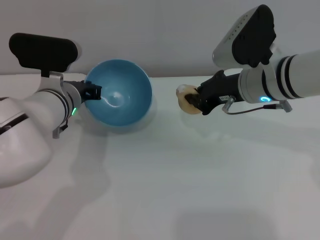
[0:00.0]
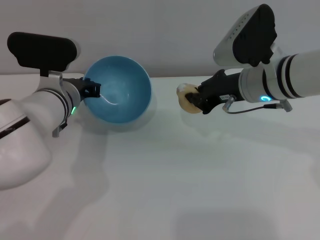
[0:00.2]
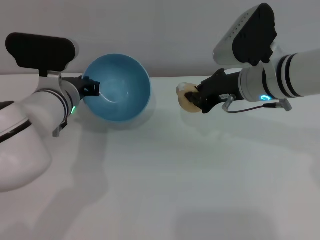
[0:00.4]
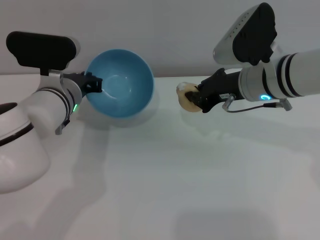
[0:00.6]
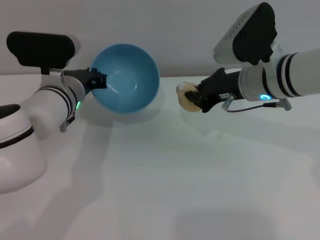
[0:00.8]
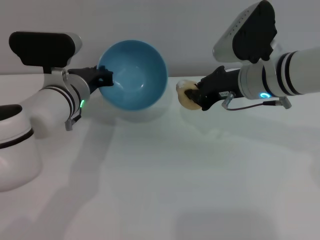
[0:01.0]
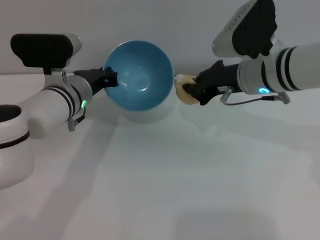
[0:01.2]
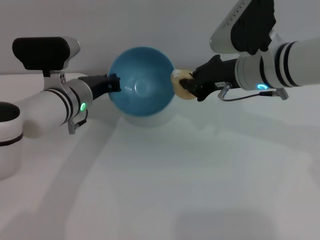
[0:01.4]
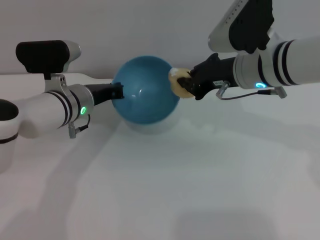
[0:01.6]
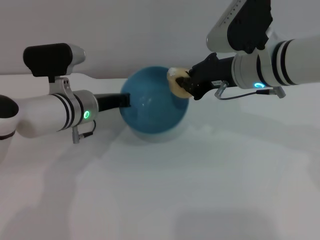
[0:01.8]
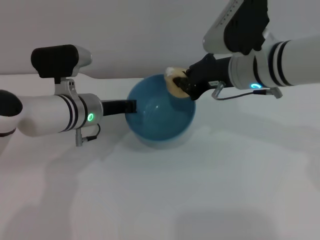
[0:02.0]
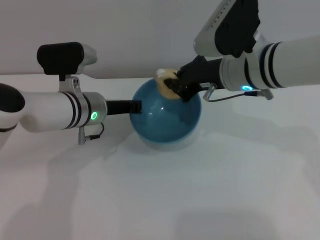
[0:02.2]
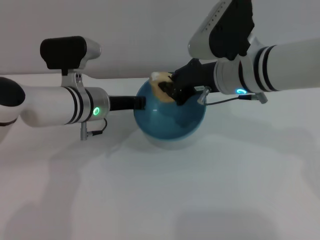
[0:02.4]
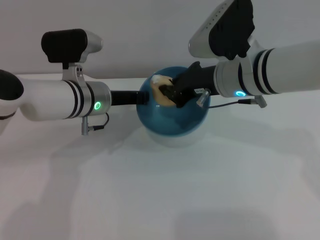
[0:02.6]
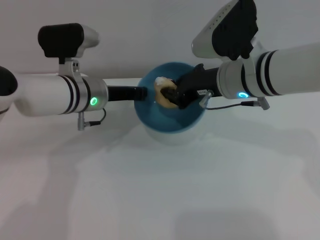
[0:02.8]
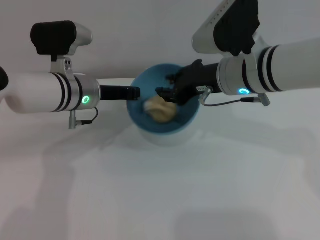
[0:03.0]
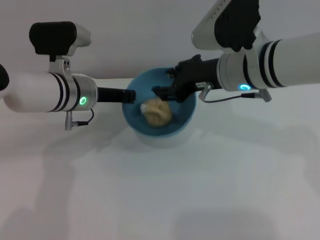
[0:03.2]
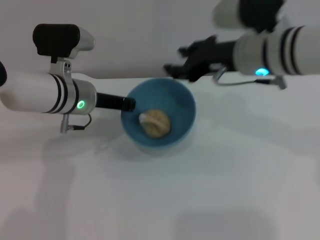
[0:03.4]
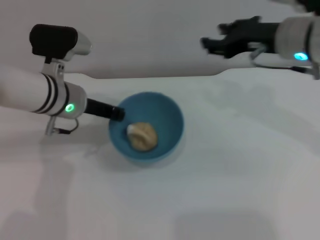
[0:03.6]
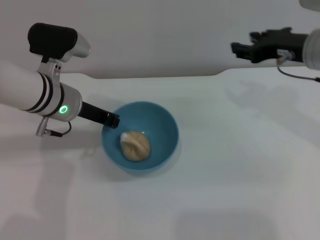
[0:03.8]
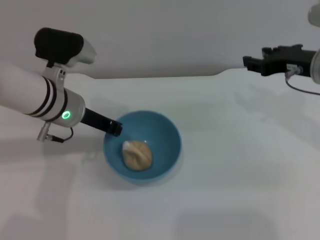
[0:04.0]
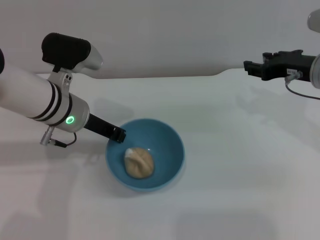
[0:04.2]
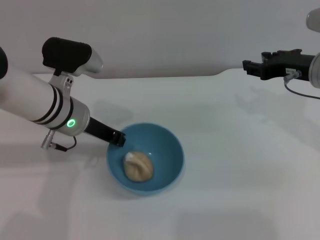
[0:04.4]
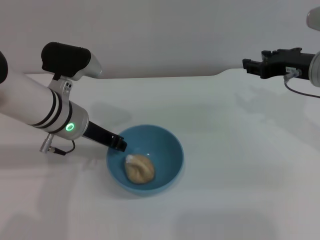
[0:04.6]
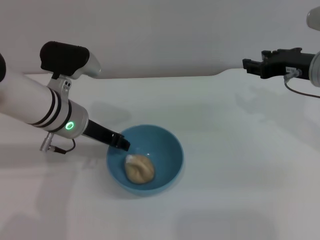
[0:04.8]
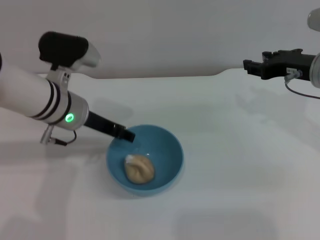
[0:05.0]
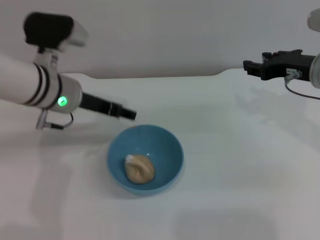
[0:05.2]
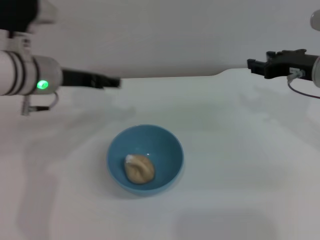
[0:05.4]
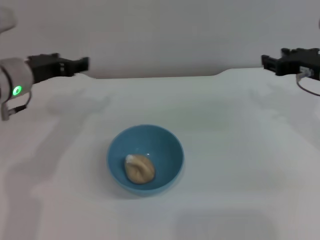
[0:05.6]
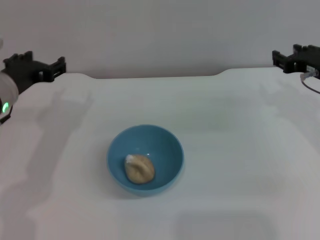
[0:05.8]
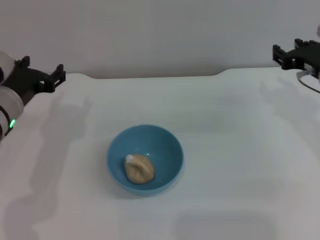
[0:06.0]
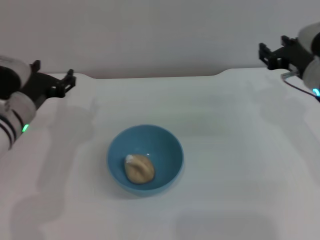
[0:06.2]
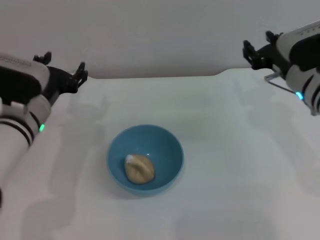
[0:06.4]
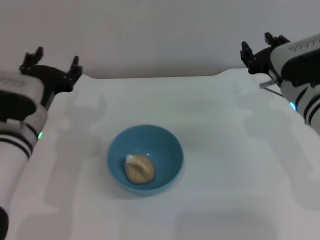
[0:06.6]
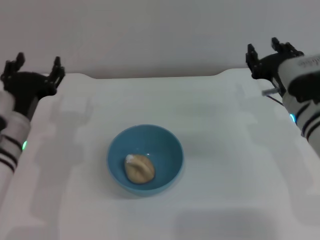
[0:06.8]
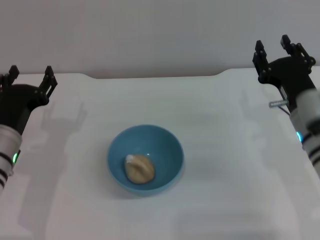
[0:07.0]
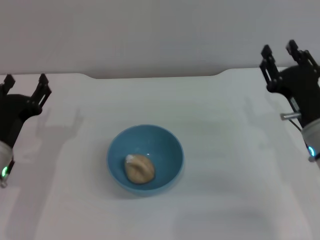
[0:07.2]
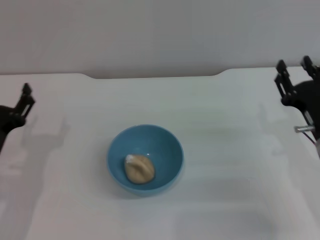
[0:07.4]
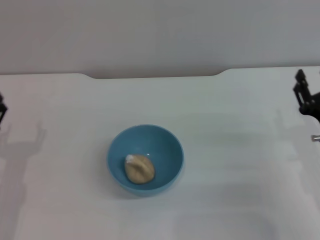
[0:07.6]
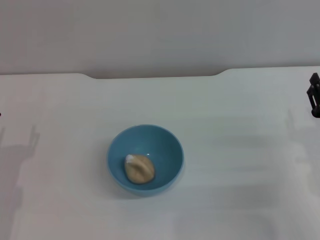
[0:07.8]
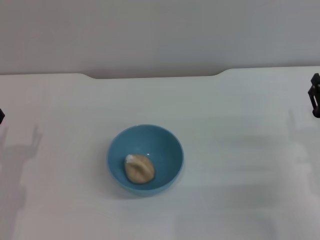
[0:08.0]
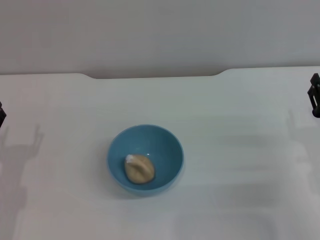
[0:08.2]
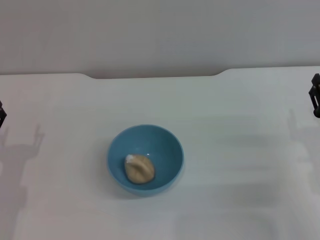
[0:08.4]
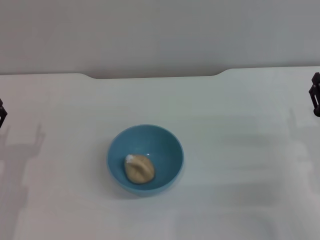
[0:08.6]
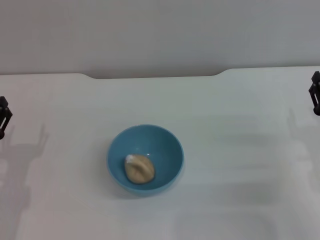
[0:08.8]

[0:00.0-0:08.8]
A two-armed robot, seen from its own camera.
Task of the whole recording: put the egg yolk pastry into the blue bowl and pour it out repeatedly.
Step, 0:00.0 to 0:03.2: Place the egg yolk pastry into the bowl.
Step, 0:03.4 to 0:05.0: Place the bowl on the table.
0:00.0 to 0:01.4: The grippers move only a little.
0:03.0 to 0:04.4: The right gripper shifts roughly 15 cm to the right, and opens.
0:04.4 to 0:05.8: The left gripper goes roughly 10 cm to the left, and opens its fingers.
0:05.8 to 0:07.4: The grippers both shift backward and downward by some 15 cm.
0:07.4 to 0:08.8: The grippers make only small movements.
